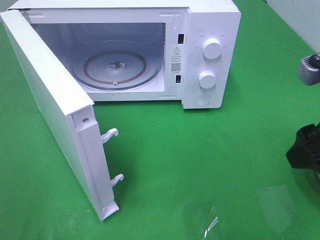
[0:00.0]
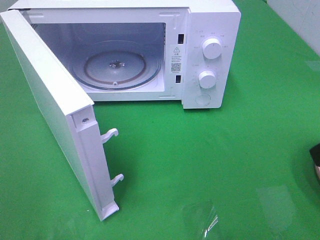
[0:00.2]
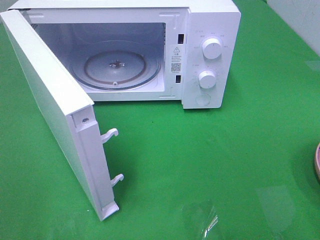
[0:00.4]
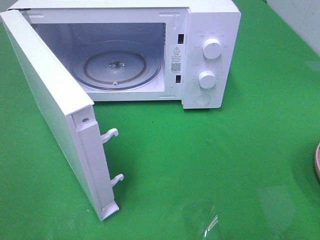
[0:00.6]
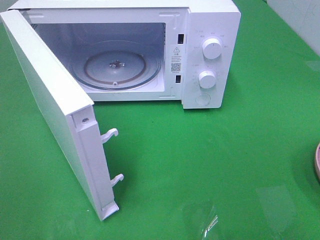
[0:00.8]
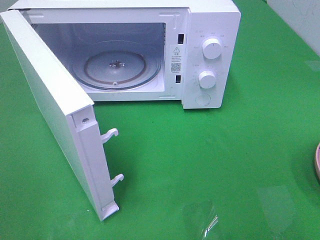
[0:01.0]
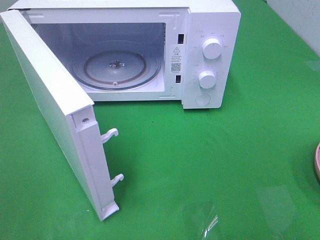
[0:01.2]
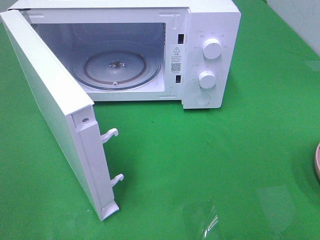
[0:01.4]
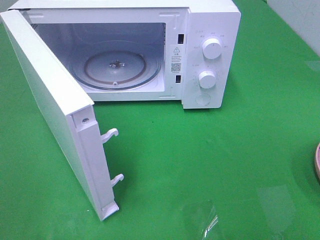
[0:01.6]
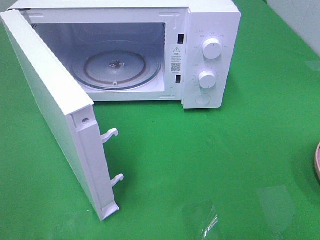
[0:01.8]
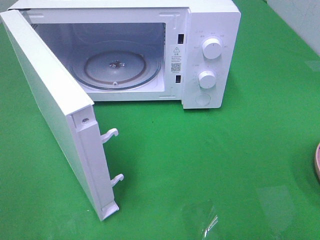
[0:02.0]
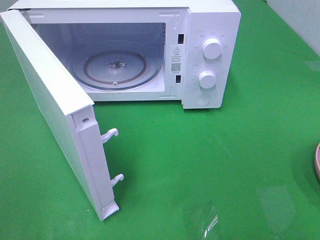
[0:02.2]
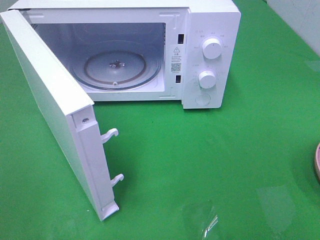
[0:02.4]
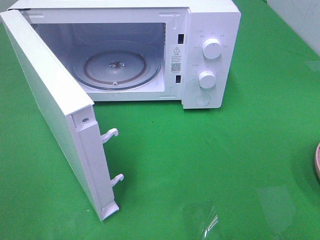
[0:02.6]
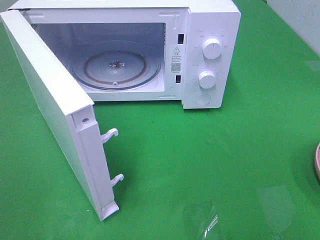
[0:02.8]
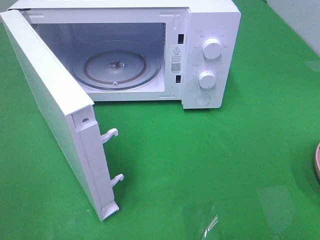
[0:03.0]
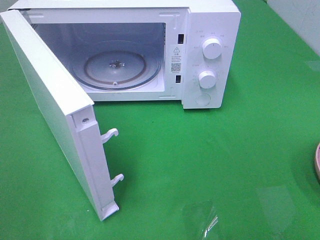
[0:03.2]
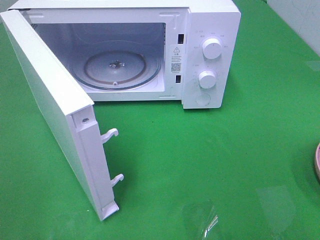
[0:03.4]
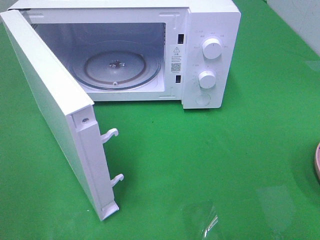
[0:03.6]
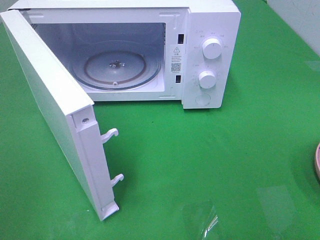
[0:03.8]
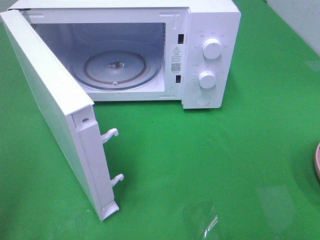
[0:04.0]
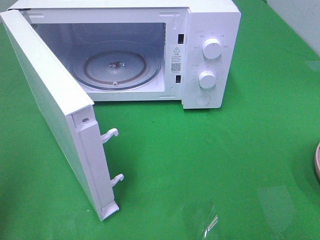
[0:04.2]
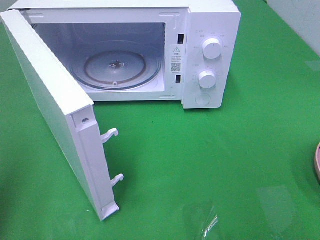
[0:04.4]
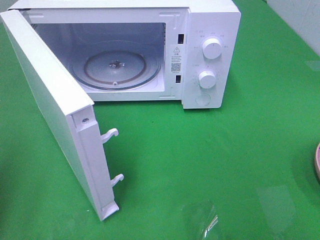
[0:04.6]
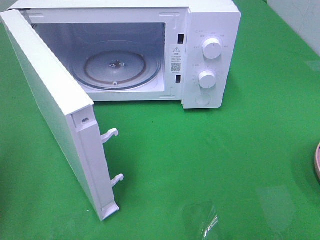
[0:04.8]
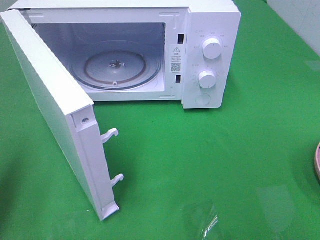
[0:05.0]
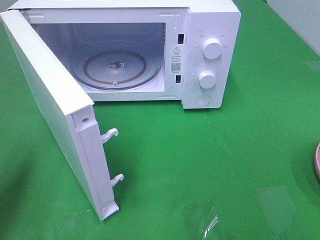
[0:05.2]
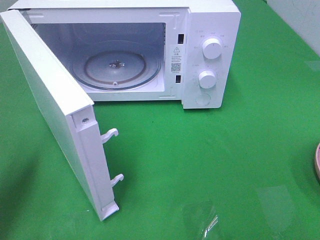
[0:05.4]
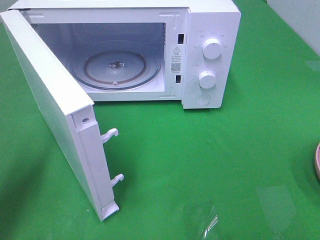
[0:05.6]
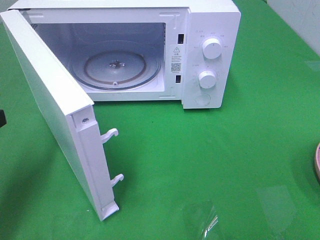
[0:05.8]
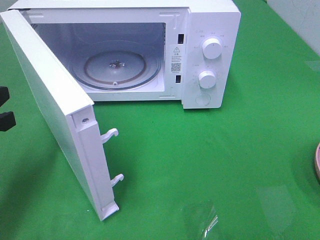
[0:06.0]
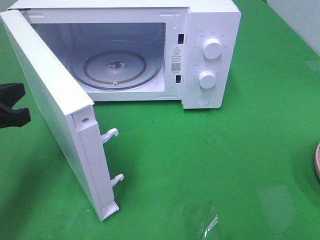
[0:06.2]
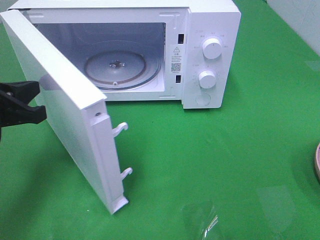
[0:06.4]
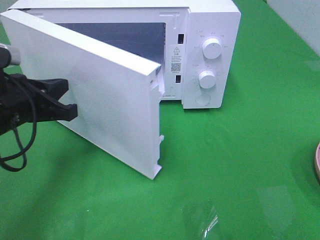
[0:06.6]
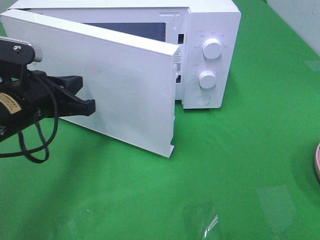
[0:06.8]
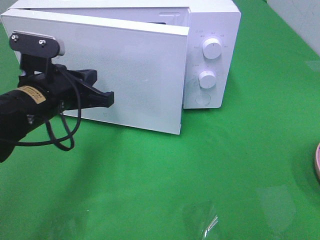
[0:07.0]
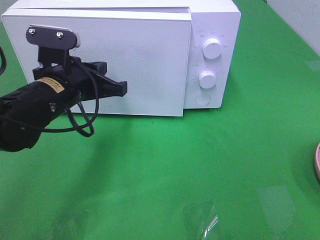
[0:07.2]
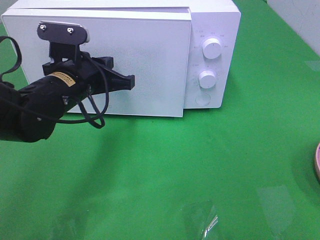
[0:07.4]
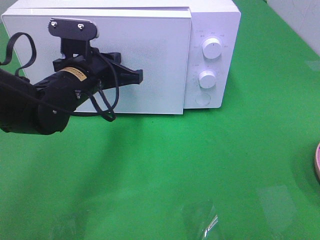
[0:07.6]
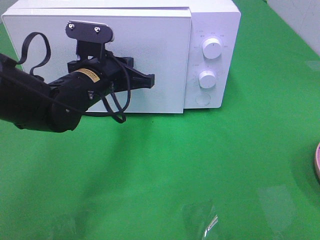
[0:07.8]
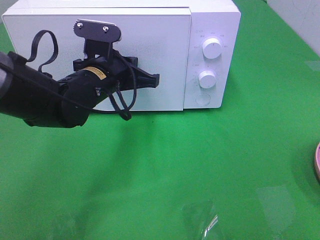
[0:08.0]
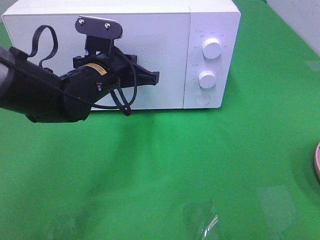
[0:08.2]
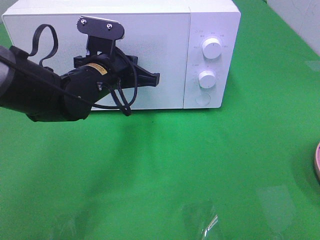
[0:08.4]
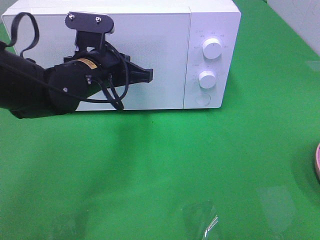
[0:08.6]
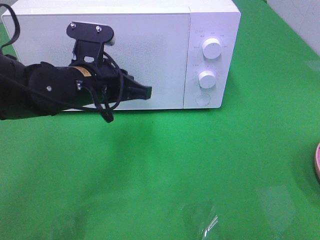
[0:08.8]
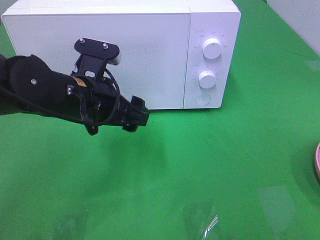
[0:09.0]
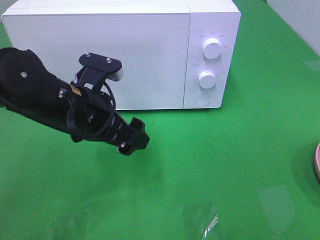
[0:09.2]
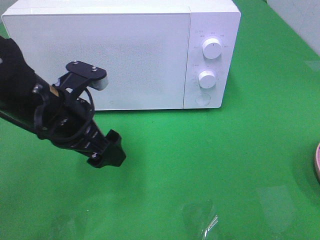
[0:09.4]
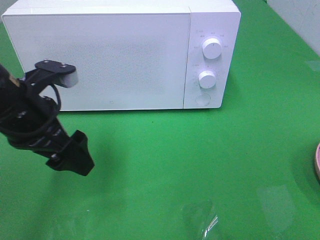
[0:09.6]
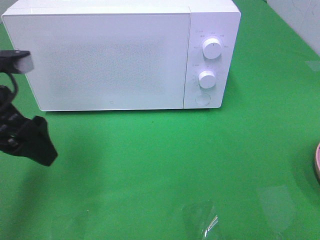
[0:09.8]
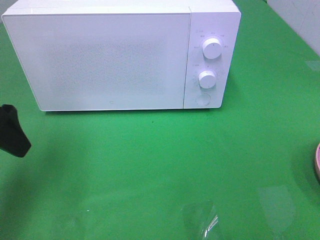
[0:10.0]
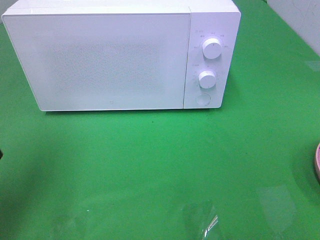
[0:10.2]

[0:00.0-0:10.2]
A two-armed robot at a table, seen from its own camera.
Task of the whole recording: Heat the burger.
Step, 0:00.0 to 0:08.8: Left hand: close the microwave door.
0:00.0 to 0:01.4: The right gripper goes about 20 cm backward and to the right.
0:01.4 to 0:03.0: Neither gripper changes place.
0:04.4 to 0:05.8: The left gripper travels forward and downward by about 10 cm.
0:05.8 to 0:07.2: The left gripper goes roughly 15 cm to the right and forward.
0:08.8 to 0:10.2: The left gripper travels to the left, backward and upward by approximately 20 cm, and opens up.

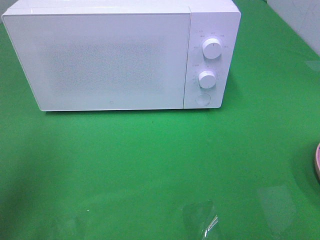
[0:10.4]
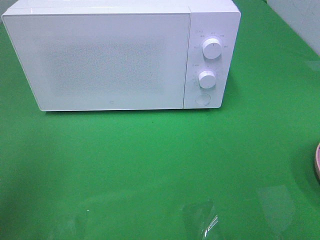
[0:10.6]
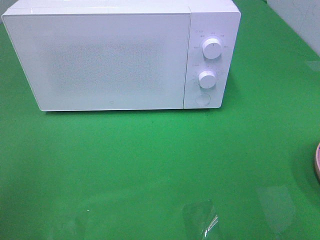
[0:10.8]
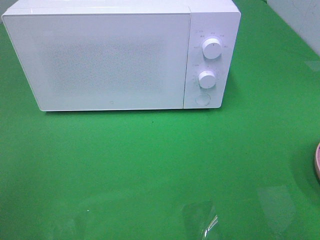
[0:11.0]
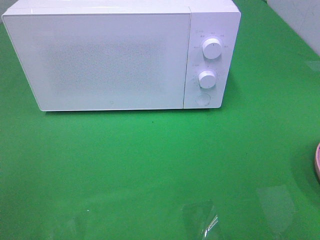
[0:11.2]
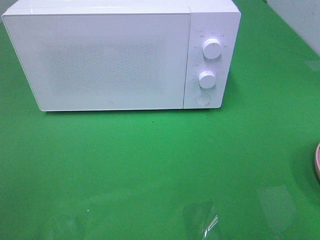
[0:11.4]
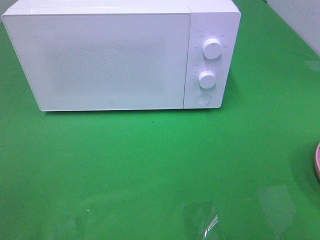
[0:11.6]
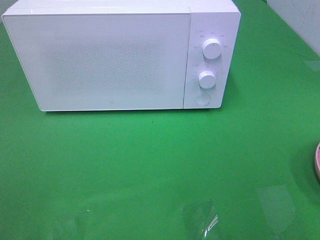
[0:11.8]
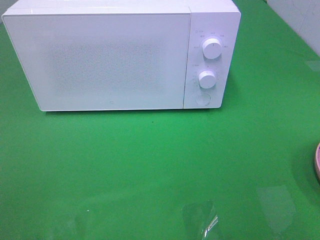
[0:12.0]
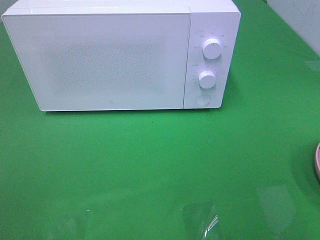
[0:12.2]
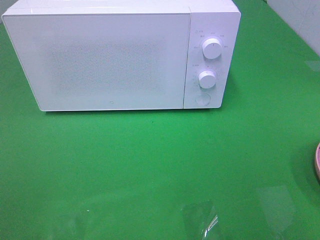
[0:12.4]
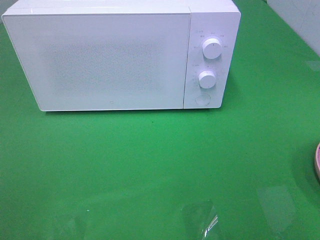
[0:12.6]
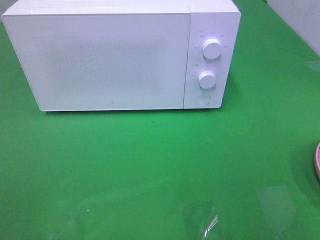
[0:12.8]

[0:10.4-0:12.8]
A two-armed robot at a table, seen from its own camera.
Task of the whole recording: Heat the burger.
0:10.4 to 0:11.6: The left gripper shifts about 15 cm backward.

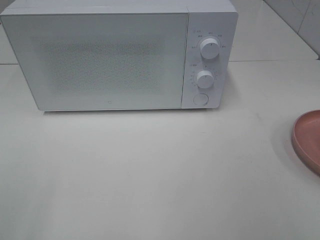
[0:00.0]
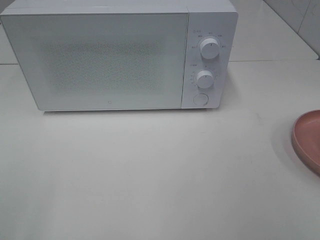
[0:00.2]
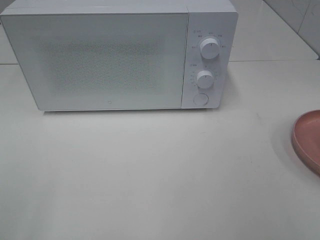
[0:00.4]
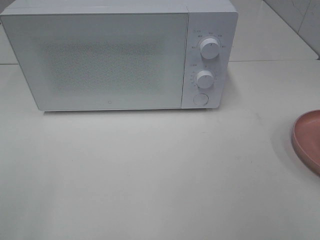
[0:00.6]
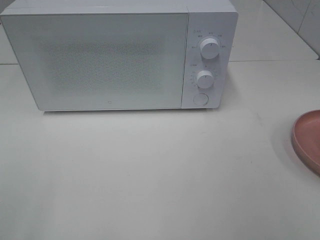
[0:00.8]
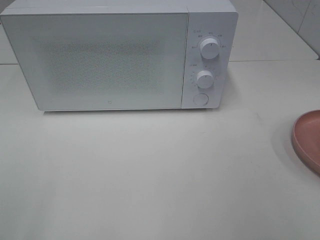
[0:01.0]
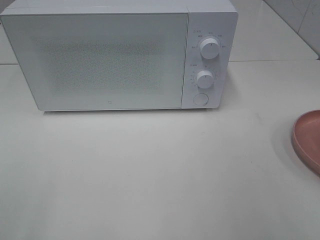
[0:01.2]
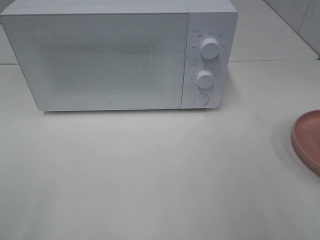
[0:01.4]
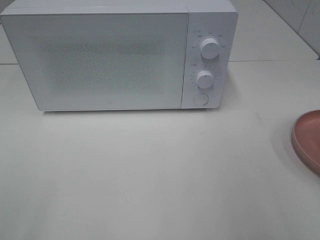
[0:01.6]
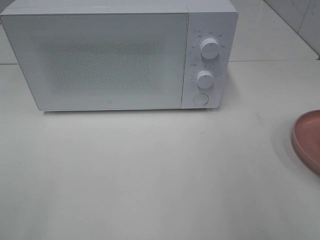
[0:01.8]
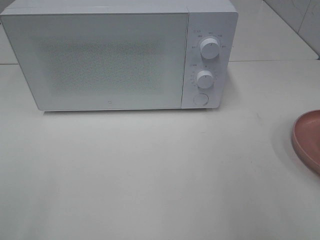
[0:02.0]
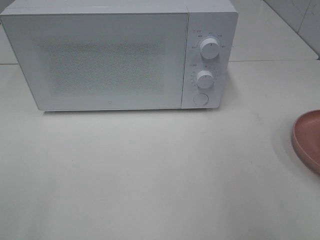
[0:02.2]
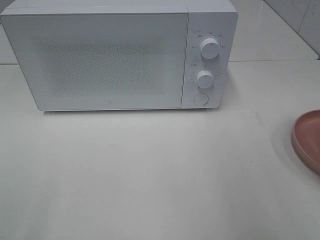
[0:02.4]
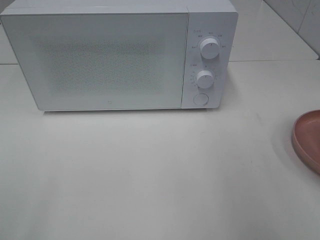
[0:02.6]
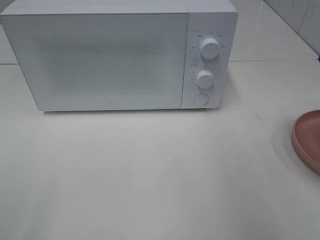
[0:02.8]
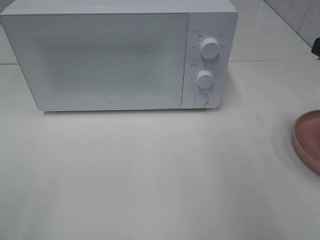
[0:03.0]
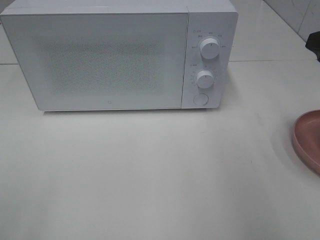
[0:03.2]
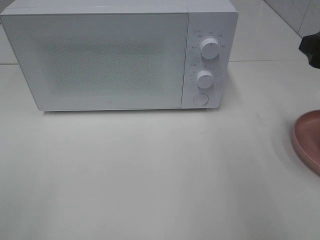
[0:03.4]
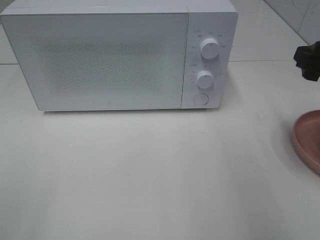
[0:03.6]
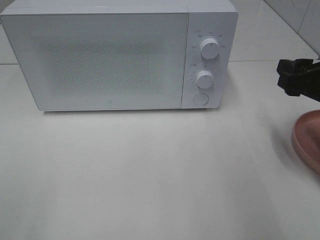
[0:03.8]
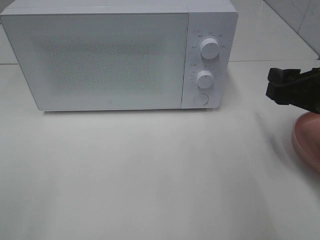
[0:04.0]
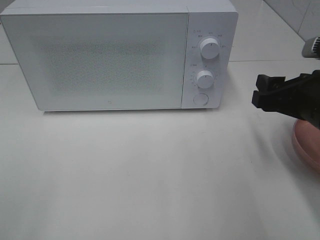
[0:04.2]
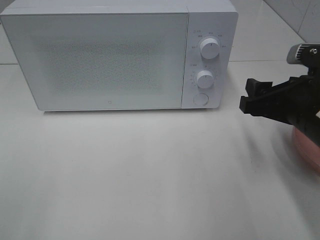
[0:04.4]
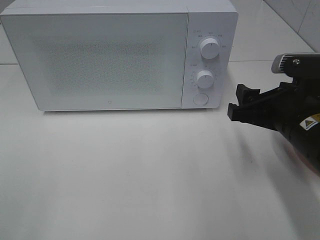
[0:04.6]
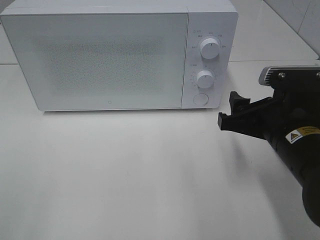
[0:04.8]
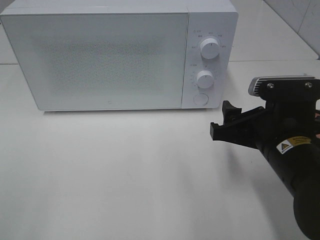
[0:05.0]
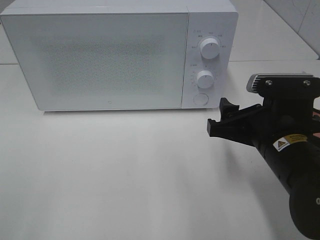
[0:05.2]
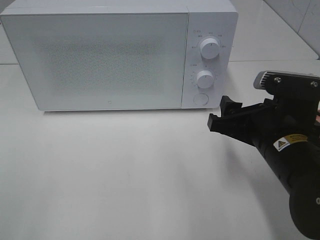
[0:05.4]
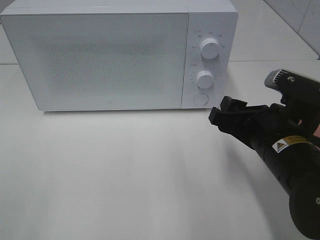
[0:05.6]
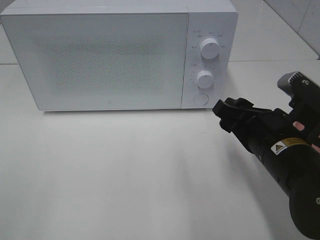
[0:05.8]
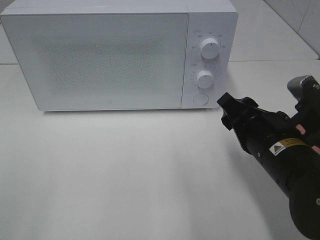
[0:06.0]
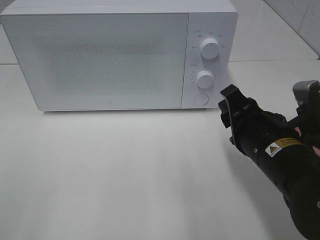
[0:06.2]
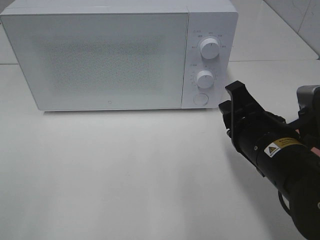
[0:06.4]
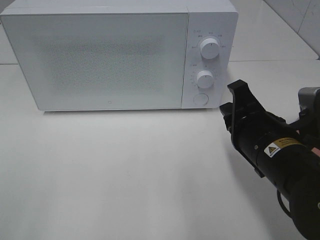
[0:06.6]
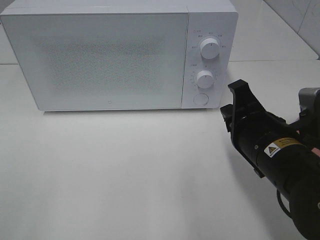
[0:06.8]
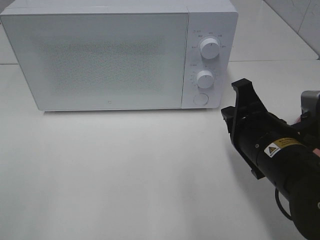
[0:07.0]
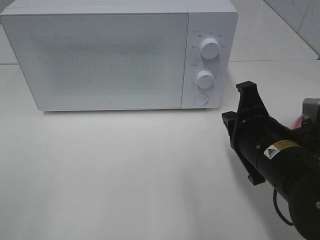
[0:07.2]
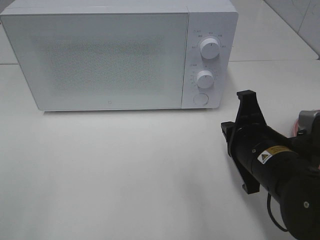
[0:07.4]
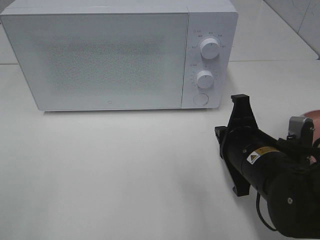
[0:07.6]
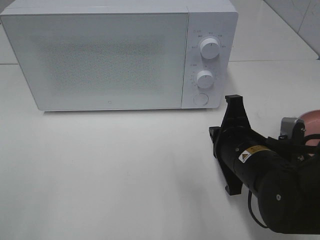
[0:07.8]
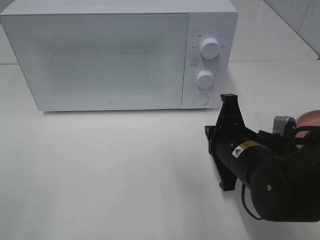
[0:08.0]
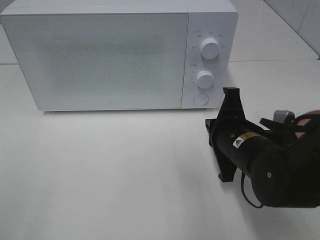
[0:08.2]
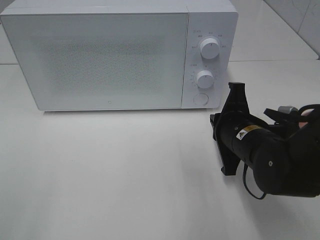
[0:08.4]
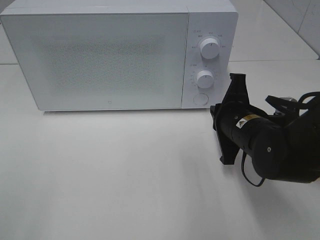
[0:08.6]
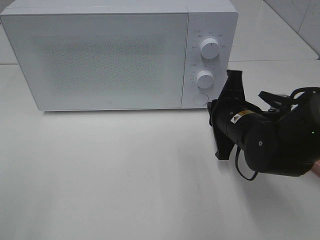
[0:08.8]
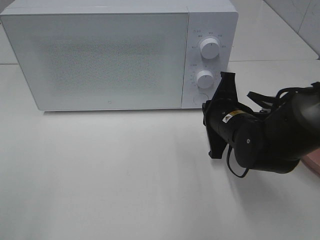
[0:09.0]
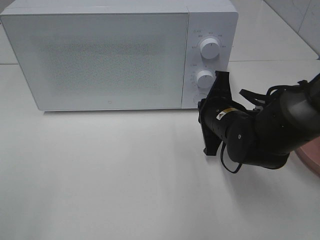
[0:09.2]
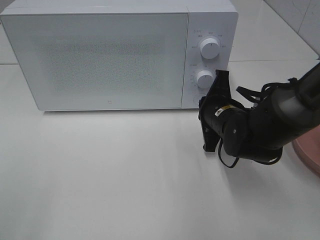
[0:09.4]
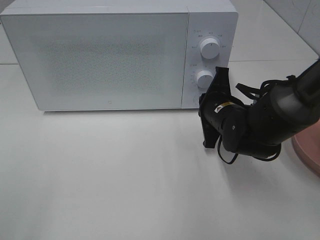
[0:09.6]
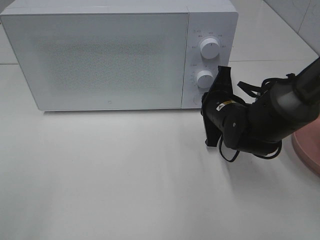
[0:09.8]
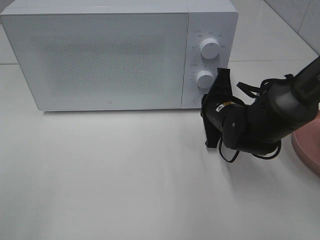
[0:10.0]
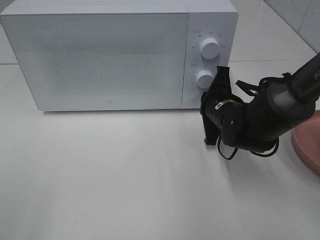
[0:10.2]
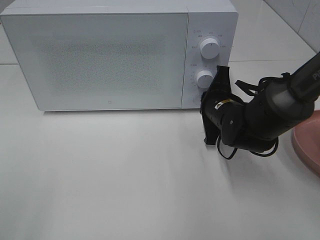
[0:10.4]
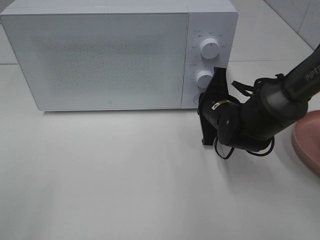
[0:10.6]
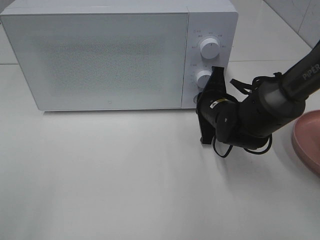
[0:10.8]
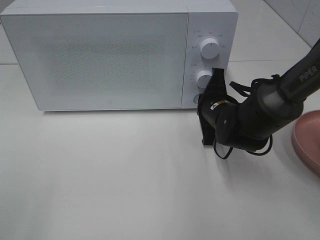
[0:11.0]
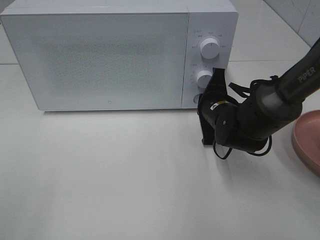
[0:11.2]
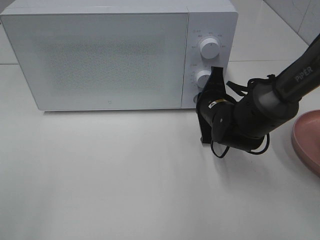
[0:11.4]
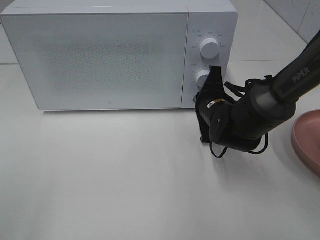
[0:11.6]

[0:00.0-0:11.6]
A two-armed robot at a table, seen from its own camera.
Task of the whole recording: Heat the burger.
0:02.8 to 0:04.4: The right gripper travels downward and to the left by approximately 15 cm.
0:04.4 to 0:05.8: The right gripper ends up roughly 5 cm from where it was.
0:05.8 to 0:07.2: The right gripper closes its fingers.
0:07.2 to 0:08.8: The right gripper travels forward by some 10 cm.
0:08.8 to 0:10.2: The right gripper travels forward by approximately 5 cm.
0:10.2 to 0:11.6: The grippers stay close to where they were, moving slightly.
